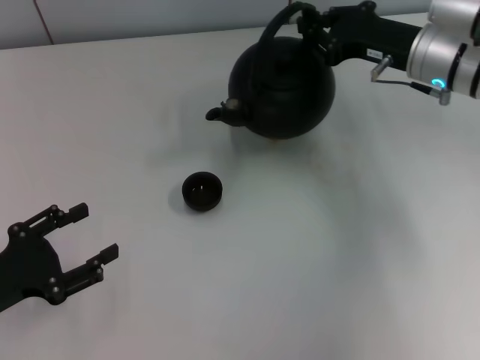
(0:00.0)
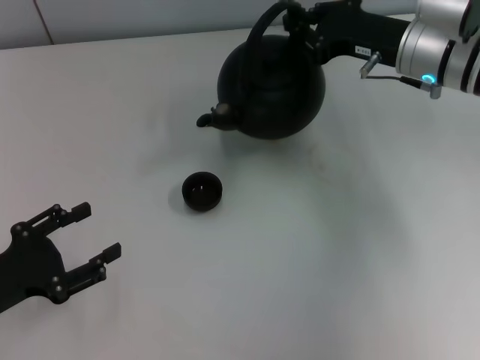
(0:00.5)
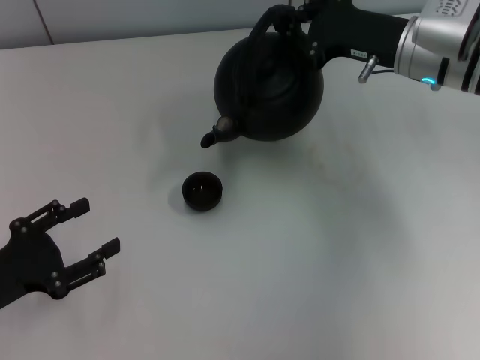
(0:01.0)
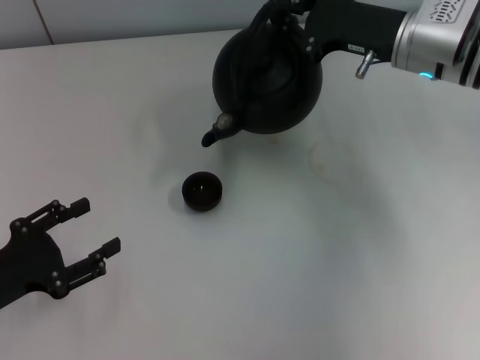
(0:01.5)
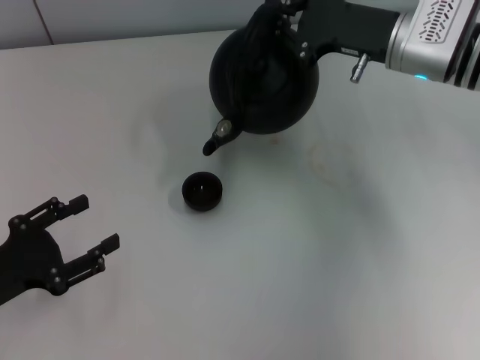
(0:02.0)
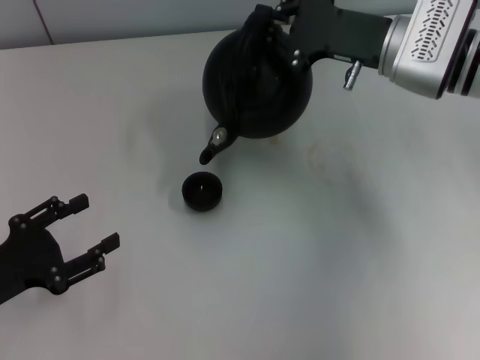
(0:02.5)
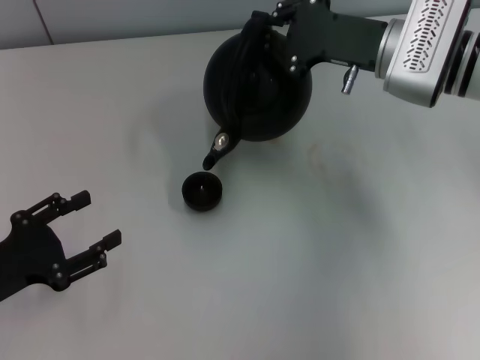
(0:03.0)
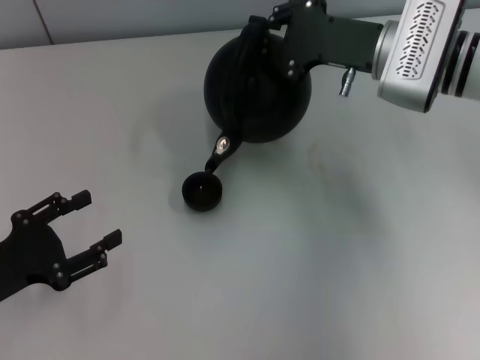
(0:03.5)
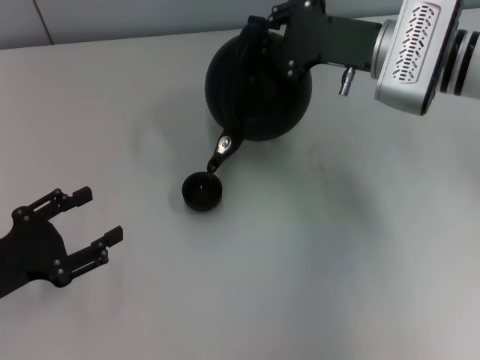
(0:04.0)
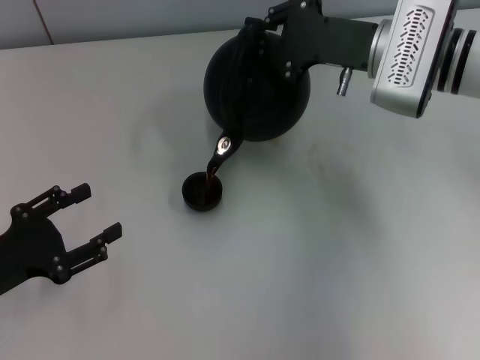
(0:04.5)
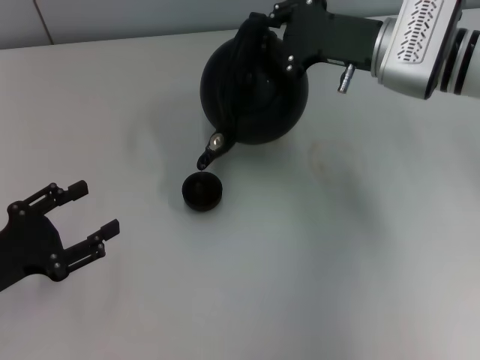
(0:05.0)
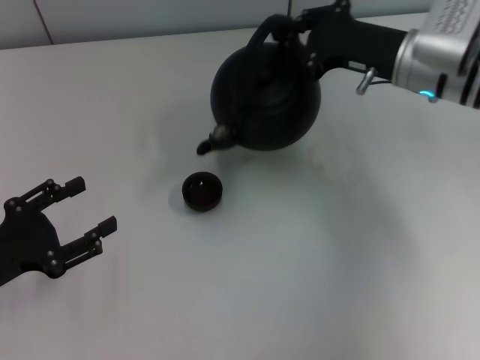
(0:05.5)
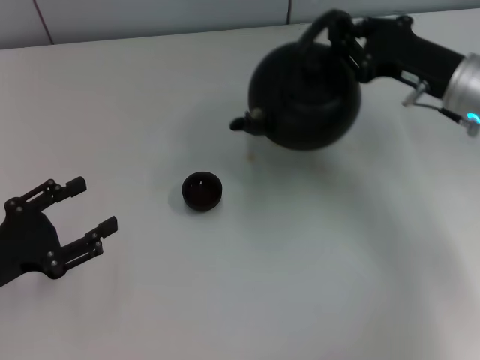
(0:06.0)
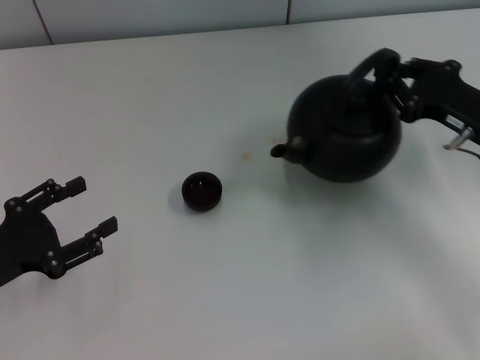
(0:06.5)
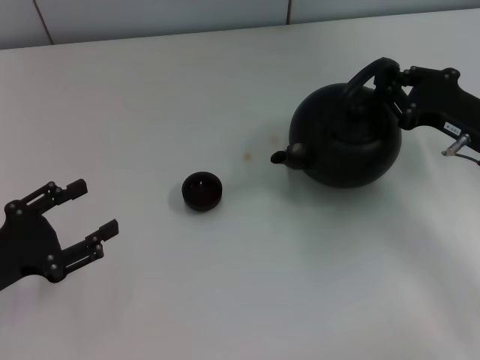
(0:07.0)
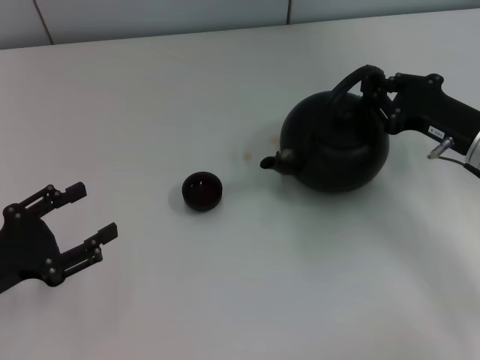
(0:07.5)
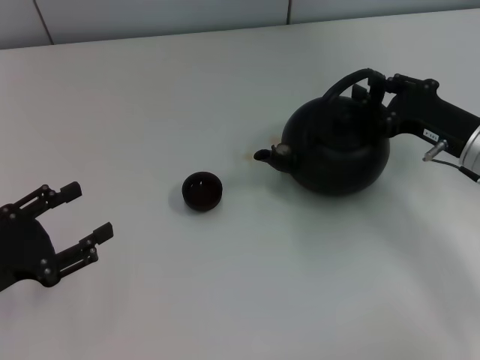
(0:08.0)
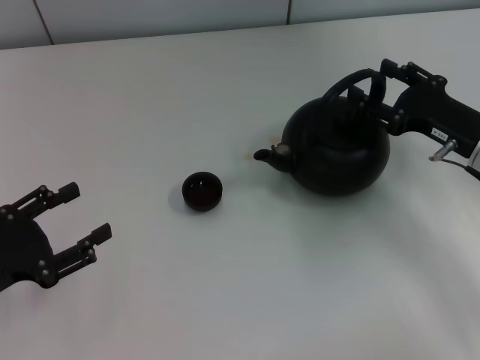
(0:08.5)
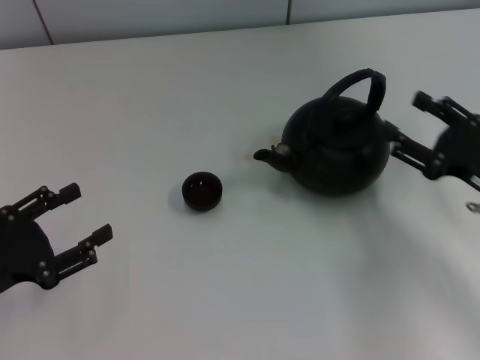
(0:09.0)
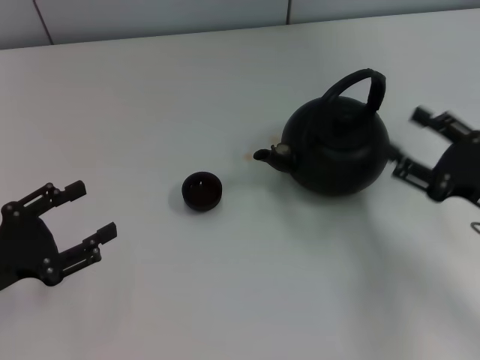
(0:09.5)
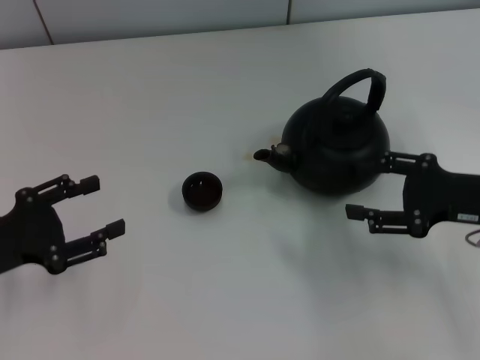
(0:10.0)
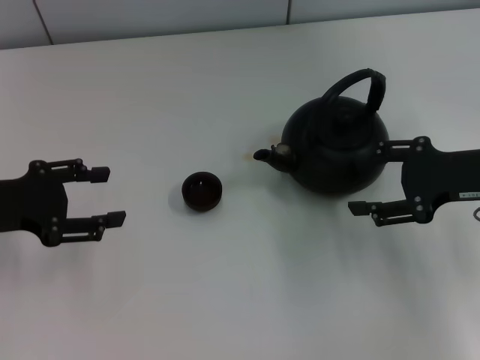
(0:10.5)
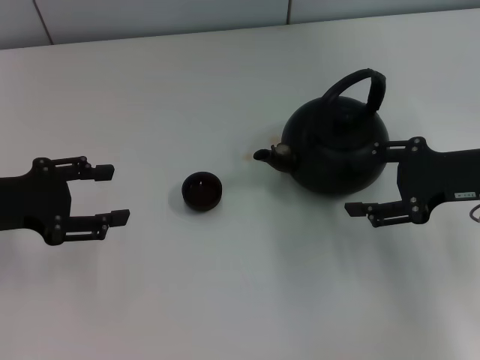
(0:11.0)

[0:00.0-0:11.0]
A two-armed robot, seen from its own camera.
Task of the whole recording: Grasp the handle of the teapot with one hand and pour tea into the teacup.
Step, 0:06.0 to 0:08.5: Put down the teapot with the right gripper.
0:02.0 to 0:03.5: The grippers make only small movements.
0:05.5 to 0:07.5: The right gripper shifts some 10 cm backward, to the right and downward.
0:07.5 to 0:09.0: The right gripper goes some 5 cm backward, and opens up.
0:09.0 to 0:11.0: The left gripper shifts some 10 cm forward and upward. Meanwhile the right gripper shifts roughly 10 cm upward and forward.
